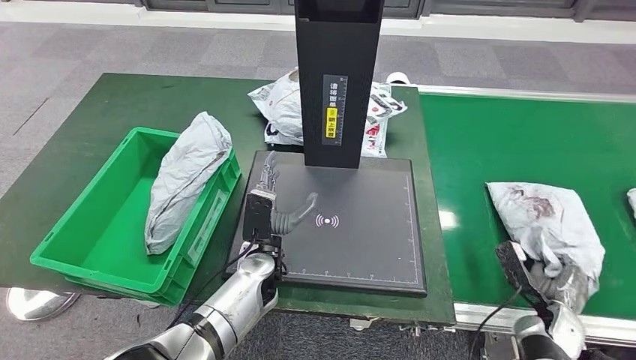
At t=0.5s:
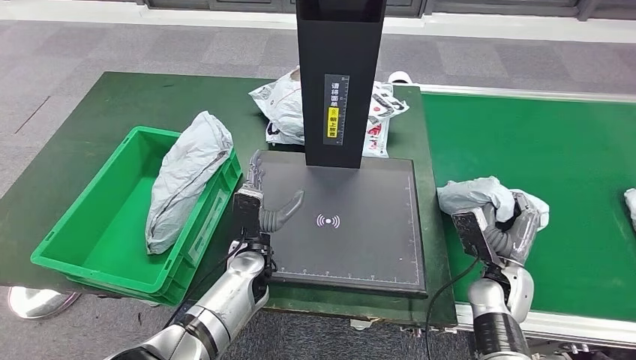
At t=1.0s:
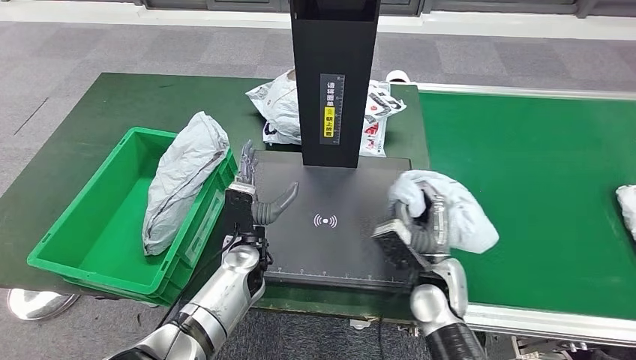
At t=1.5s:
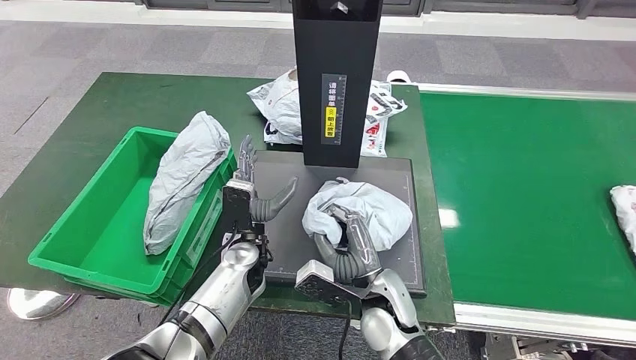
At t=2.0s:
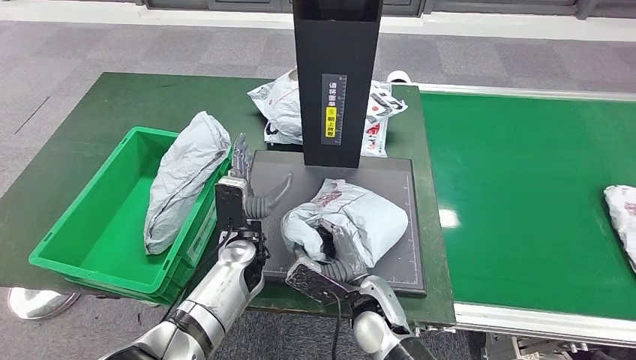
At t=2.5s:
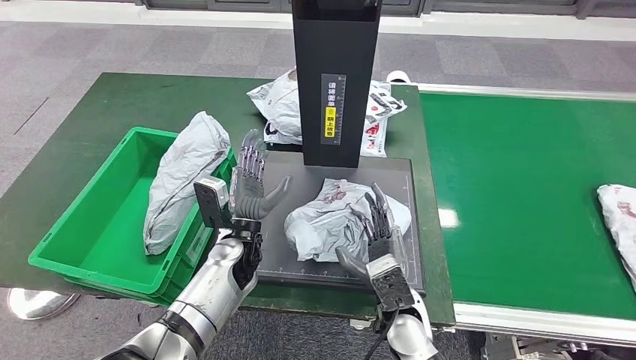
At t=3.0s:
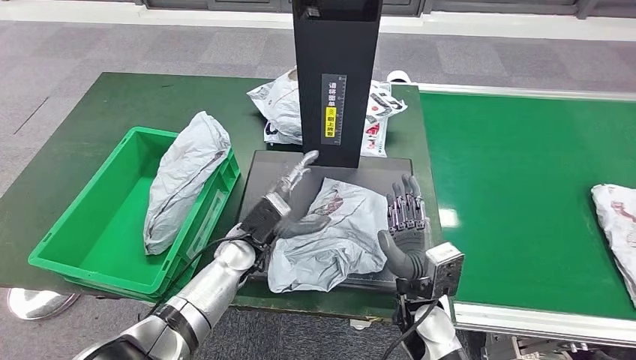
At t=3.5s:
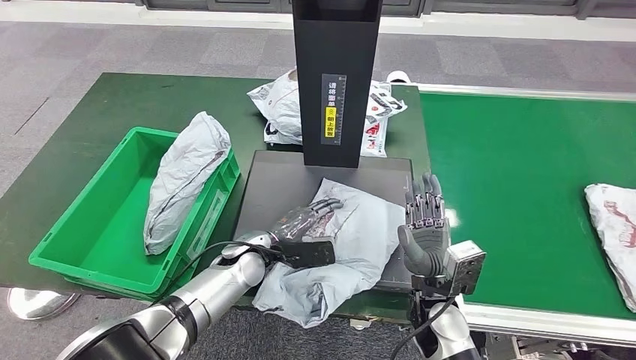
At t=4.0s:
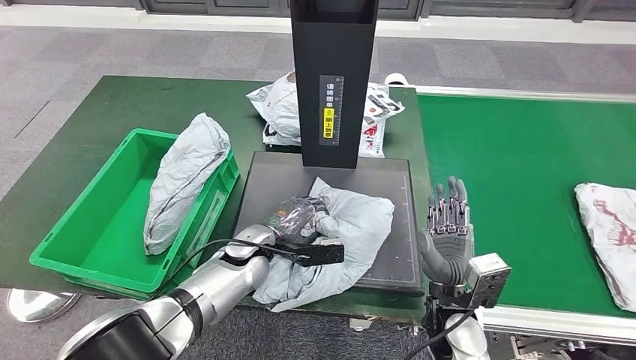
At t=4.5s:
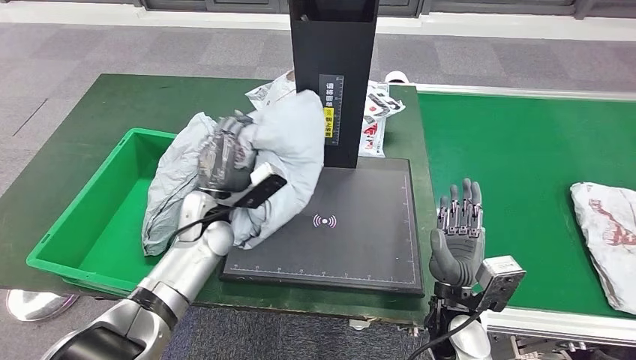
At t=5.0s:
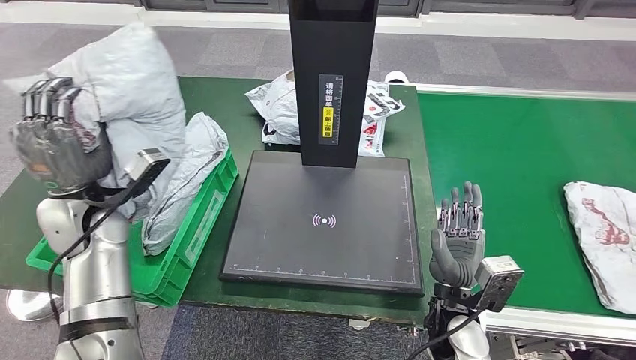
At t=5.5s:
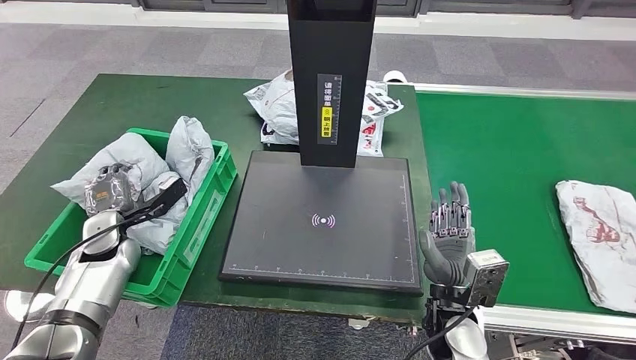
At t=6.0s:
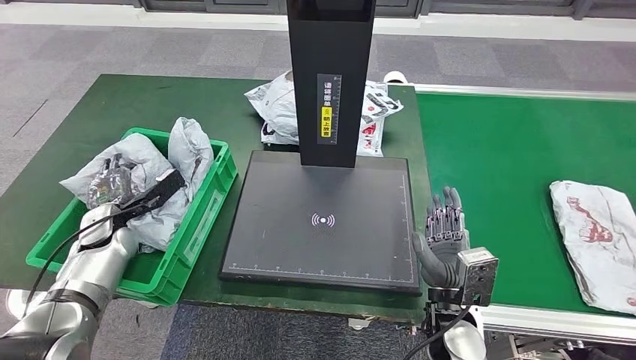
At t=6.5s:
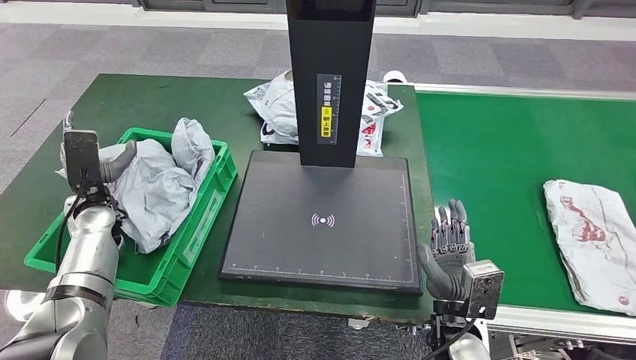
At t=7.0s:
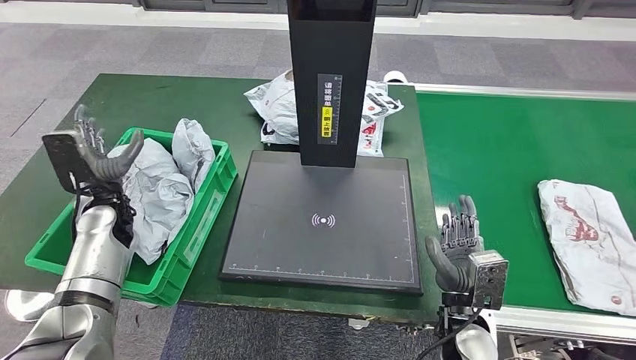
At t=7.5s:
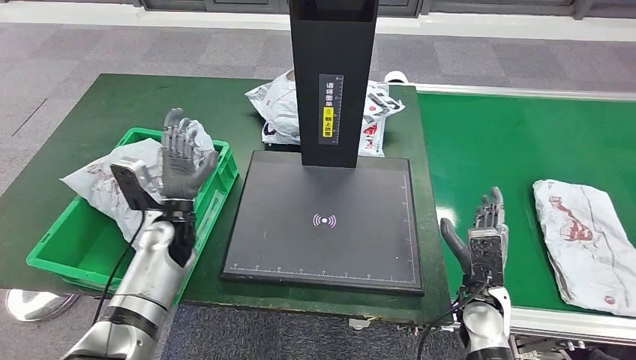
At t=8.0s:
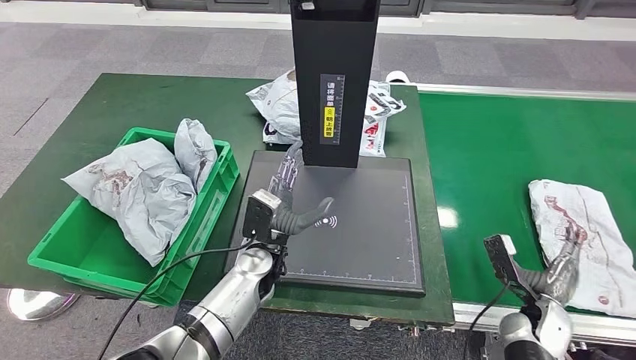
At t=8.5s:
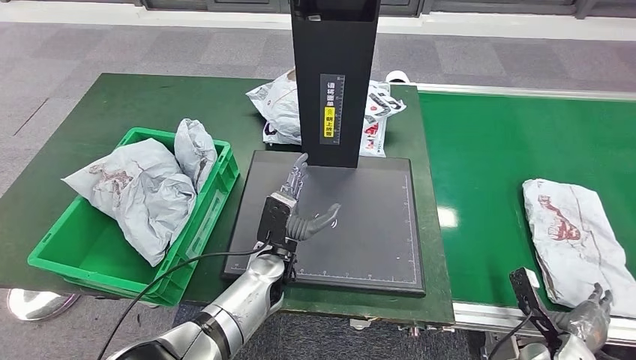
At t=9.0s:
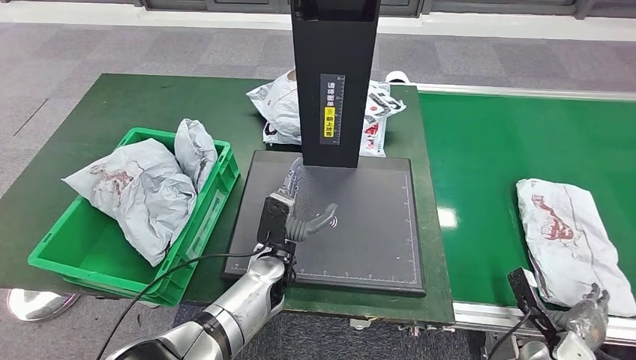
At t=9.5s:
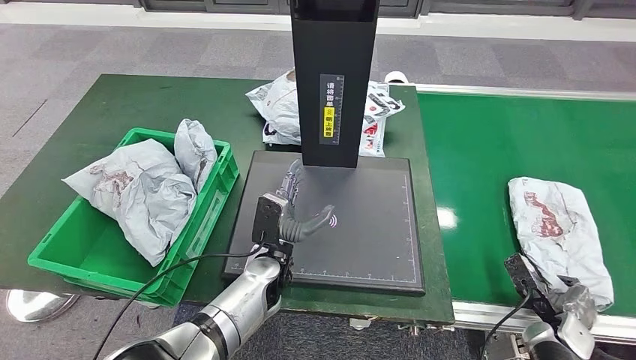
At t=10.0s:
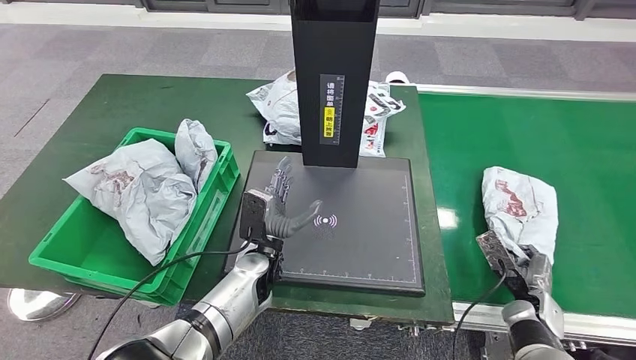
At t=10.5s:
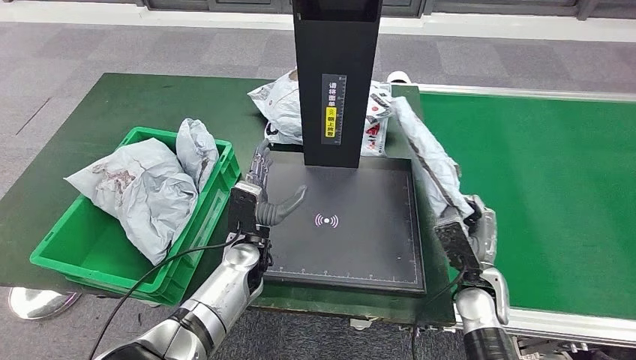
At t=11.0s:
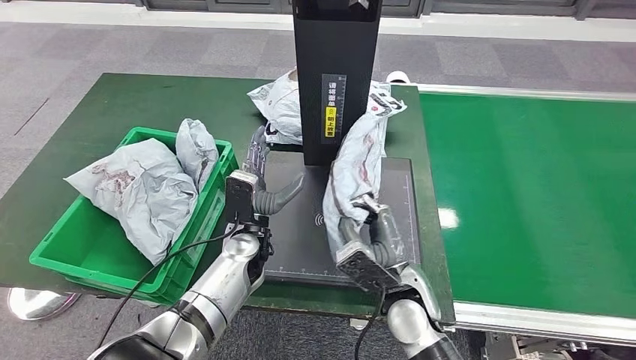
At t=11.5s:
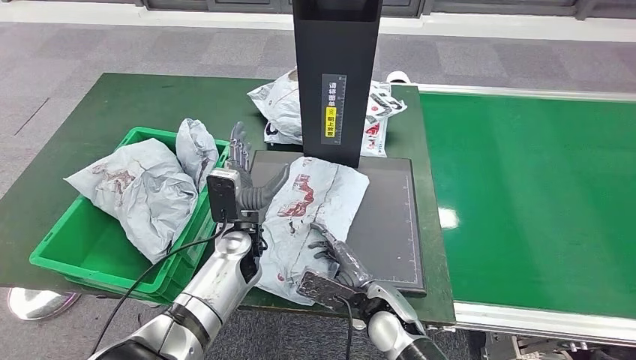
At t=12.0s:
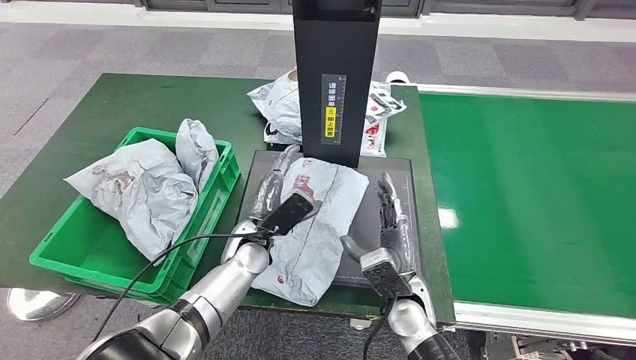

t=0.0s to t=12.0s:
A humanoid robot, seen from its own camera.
Step, t=1.0s to t=3.0s: Place the parcel onto the inbound machine.
Step, t=3.5s to t=4.5s: Pick up the parcel from the inbound machine.
Step, t=5.0s to t=6.5s: Place the parcel into the delivery box.
Step, t=10.0s to t=11.0s: Pick up the parcel from the conveyor belt.

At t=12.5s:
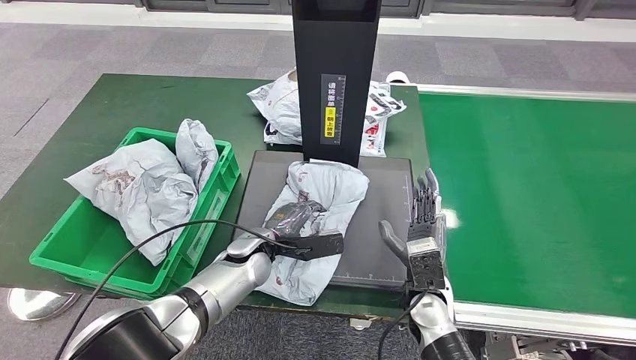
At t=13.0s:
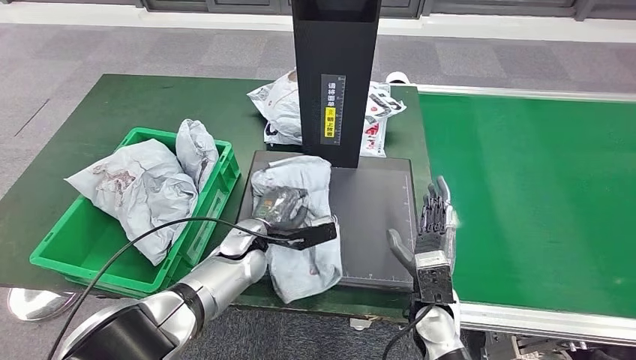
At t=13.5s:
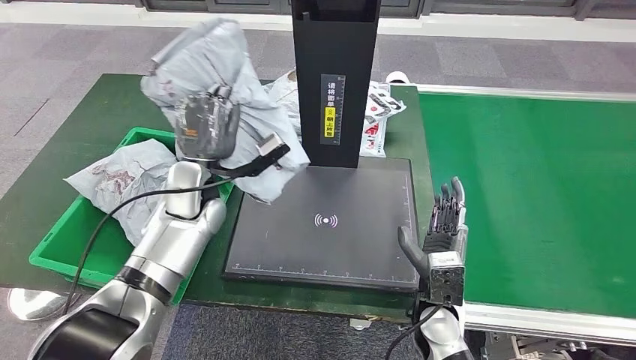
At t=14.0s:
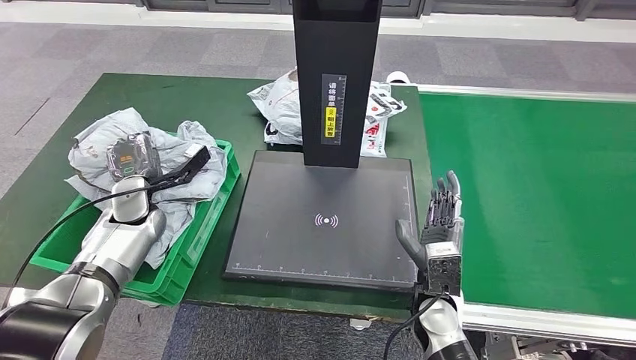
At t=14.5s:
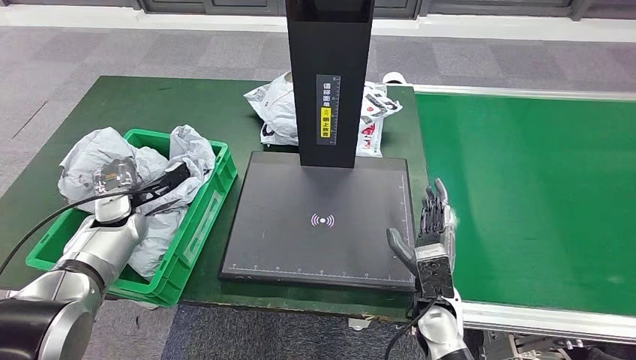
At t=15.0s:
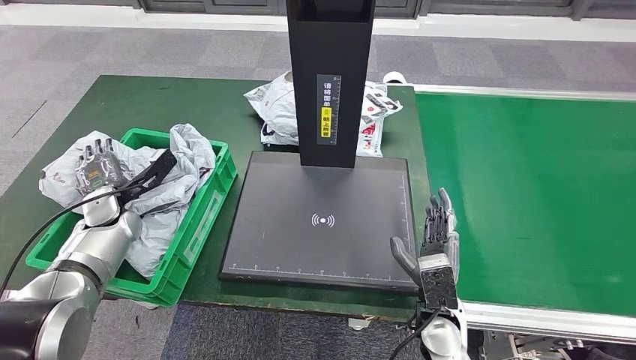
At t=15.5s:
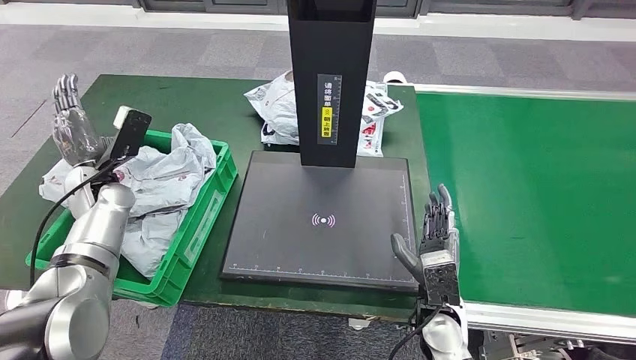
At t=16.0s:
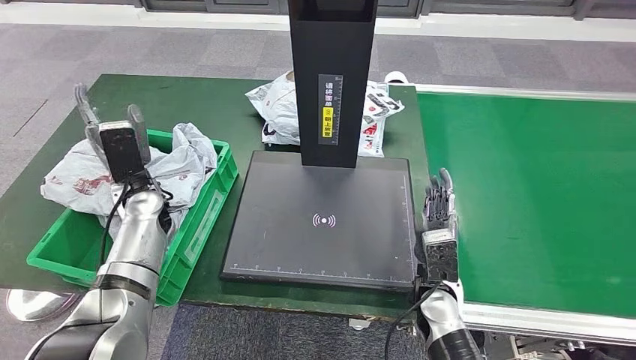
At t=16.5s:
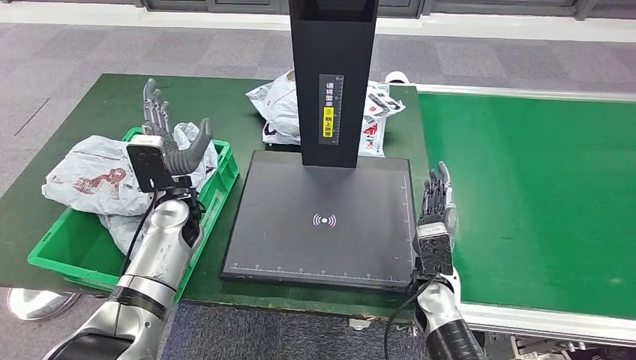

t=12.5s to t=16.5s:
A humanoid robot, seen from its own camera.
Step, t=14.0s to t=16.5s: Place the parcel into the delivery box.

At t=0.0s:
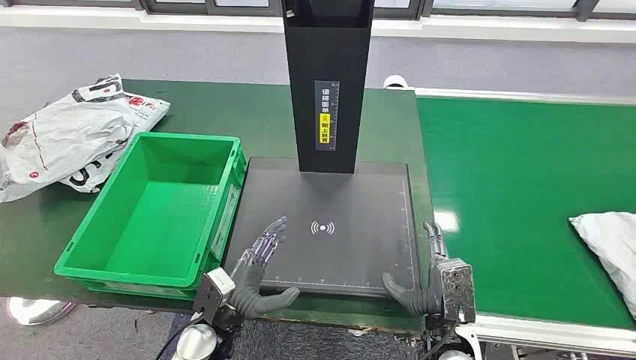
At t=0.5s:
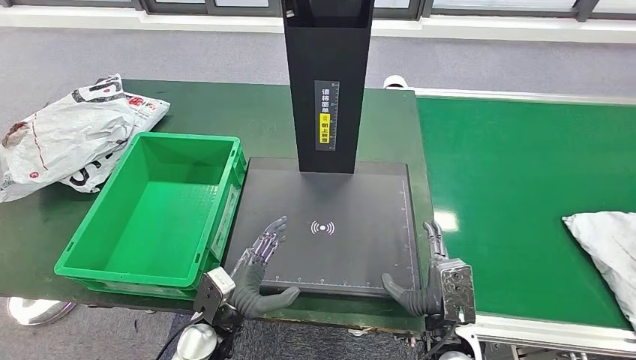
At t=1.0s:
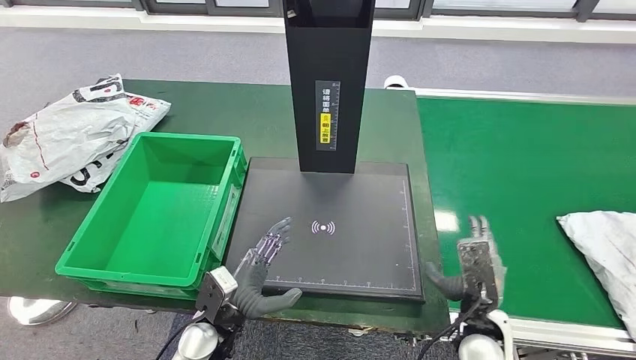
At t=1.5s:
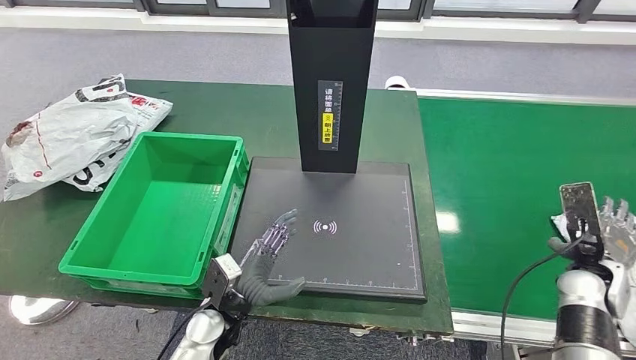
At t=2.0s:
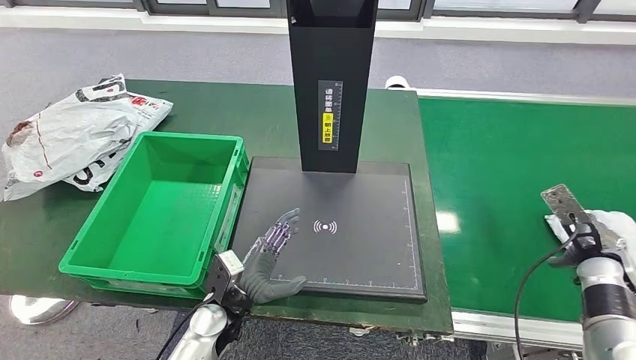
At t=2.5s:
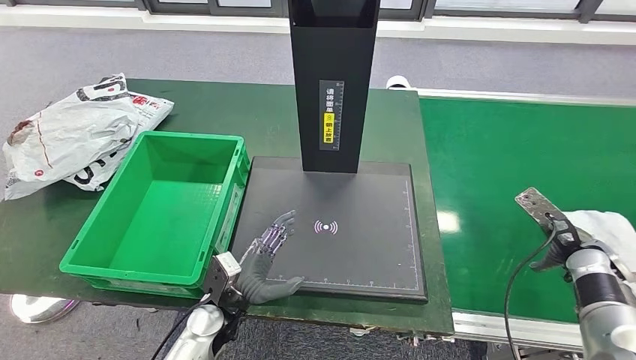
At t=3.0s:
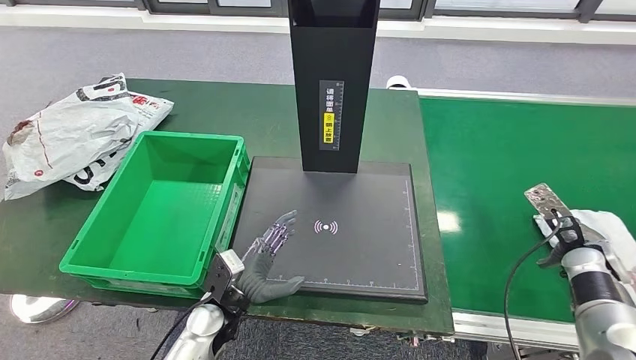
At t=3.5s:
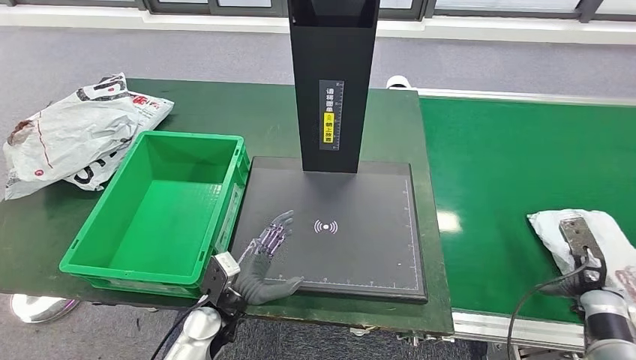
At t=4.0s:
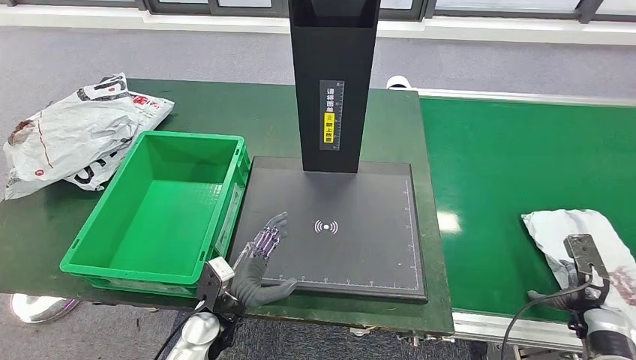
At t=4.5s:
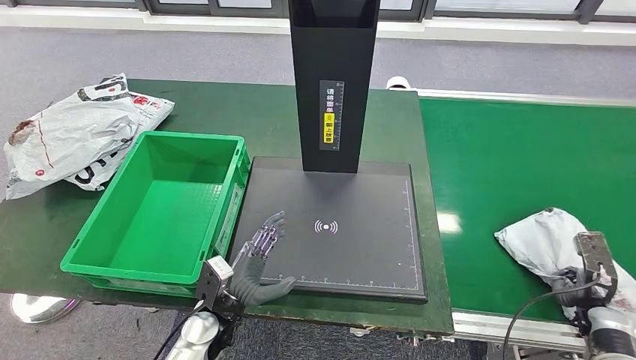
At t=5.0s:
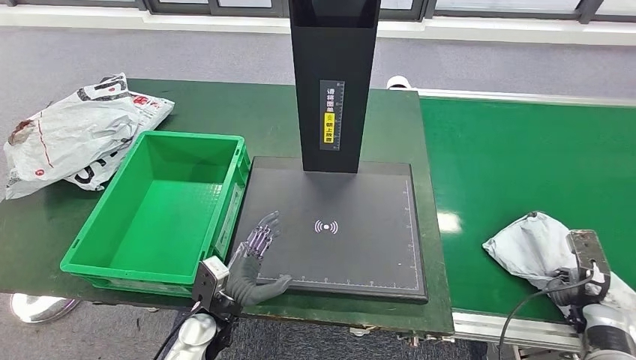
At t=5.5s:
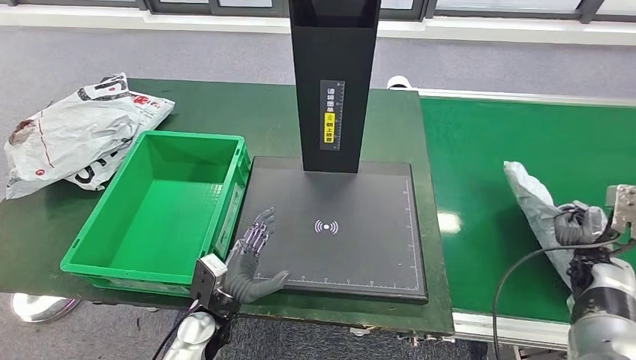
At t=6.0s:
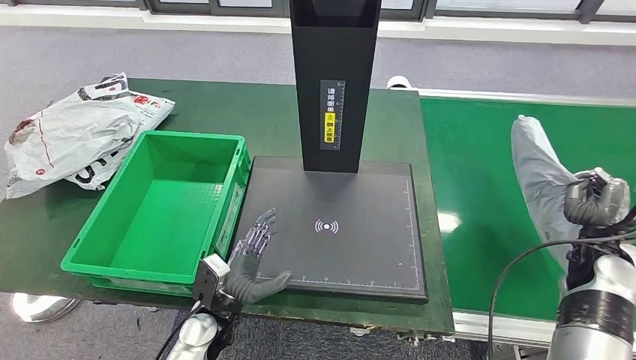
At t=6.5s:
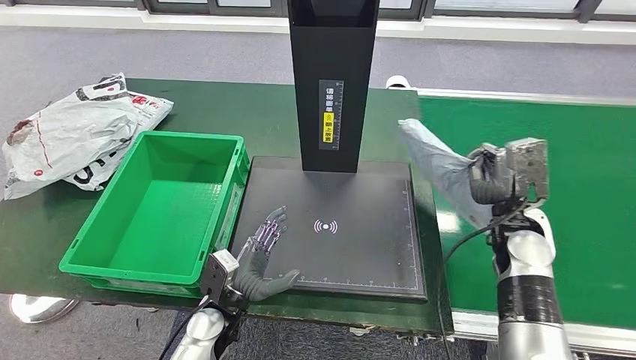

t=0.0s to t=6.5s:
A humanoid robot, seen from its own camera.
t=2.0s to t=4.5s: The right hand is displaced downward and backward by approximately 10 cm.
t=4.5s to t=6.5s: The right hand goes about 25 cm to the left, upward and forward.
